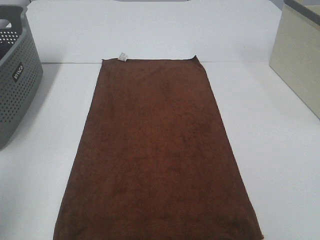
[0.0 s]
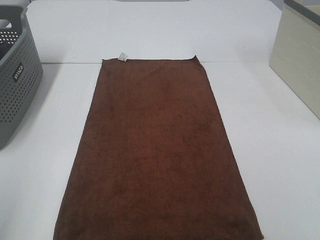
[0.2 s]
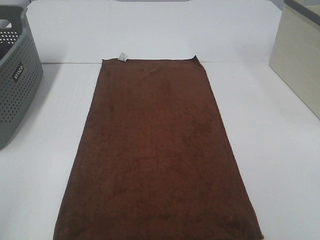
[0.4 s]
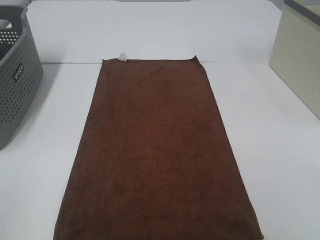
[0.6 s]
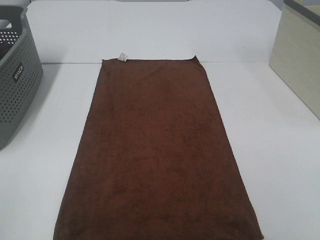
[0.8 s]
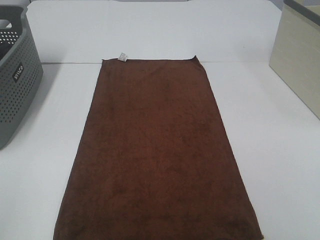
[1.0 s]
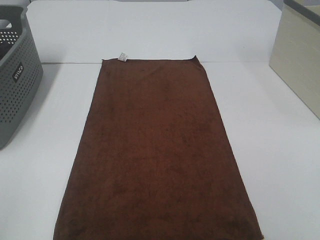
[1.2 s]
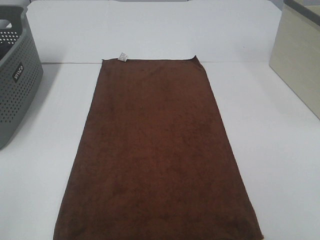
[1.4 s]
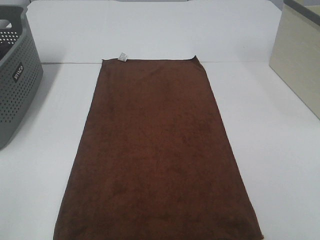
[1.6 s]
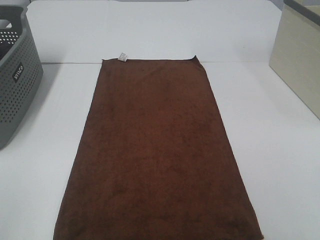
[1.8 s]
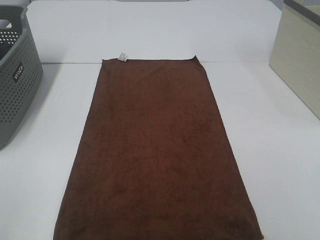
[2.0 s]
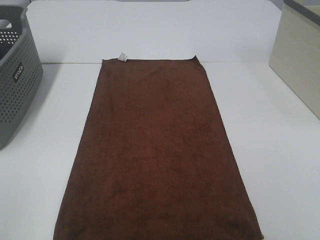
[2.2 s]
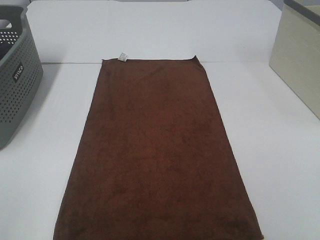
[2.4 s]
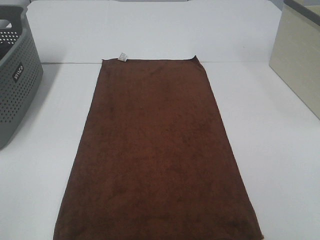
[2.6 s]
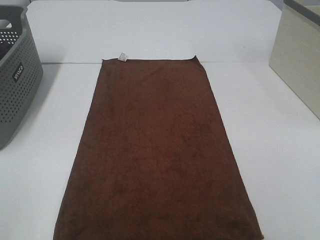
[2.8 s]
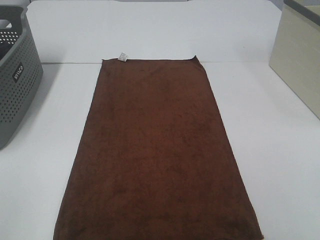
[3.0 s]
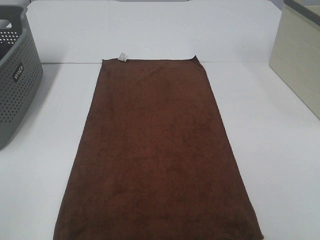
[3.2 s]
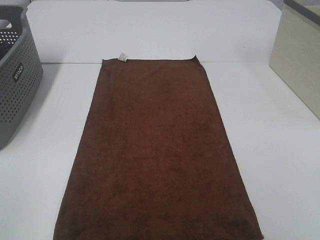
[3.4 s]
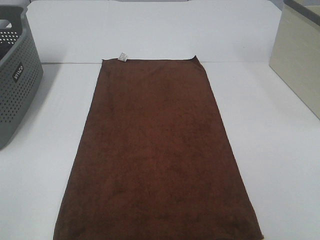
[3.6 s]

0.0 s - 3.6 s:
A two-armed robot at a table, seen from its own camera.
Task of the whole recording: Remove the towel and place it.
0.0 s - 1.8 s: The left gripper shifts some 10 cm backward.
1.8 s - 3.6 s: Both grippers stay put.

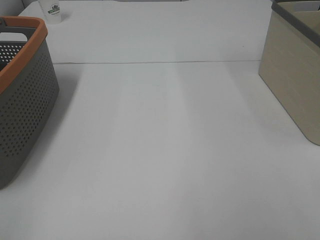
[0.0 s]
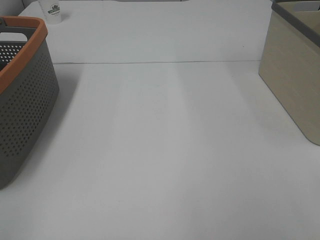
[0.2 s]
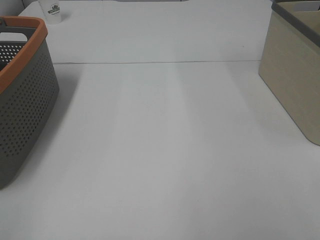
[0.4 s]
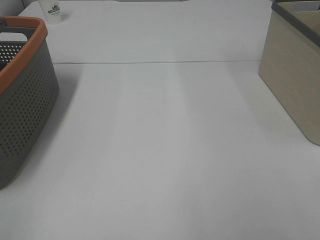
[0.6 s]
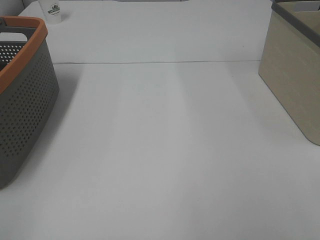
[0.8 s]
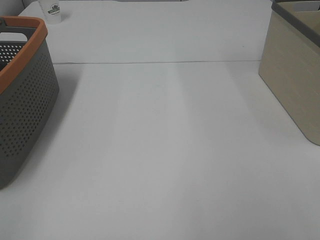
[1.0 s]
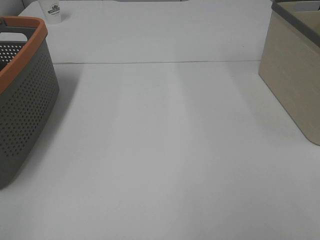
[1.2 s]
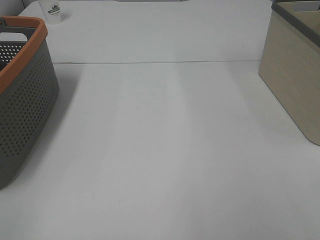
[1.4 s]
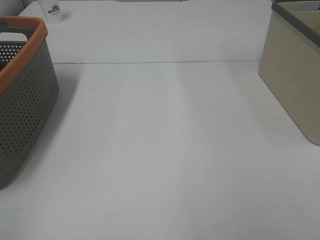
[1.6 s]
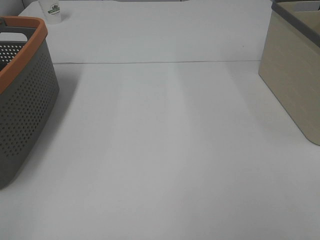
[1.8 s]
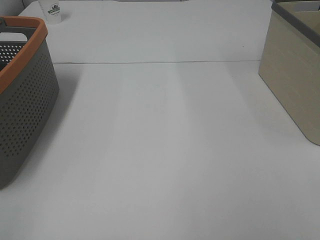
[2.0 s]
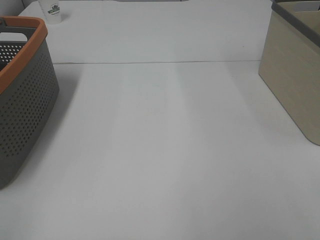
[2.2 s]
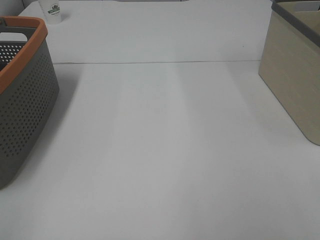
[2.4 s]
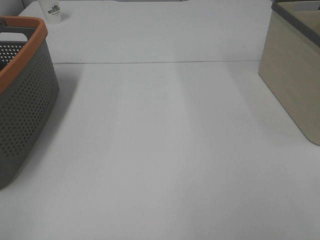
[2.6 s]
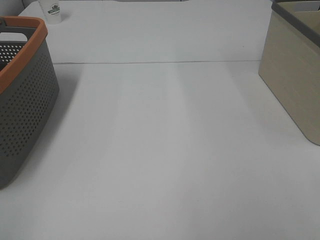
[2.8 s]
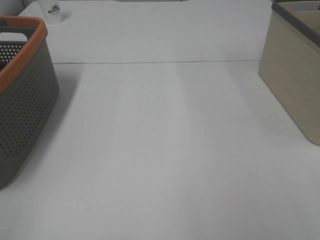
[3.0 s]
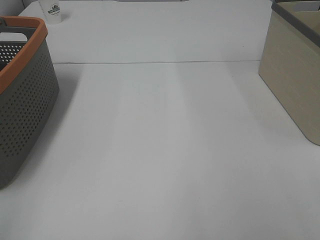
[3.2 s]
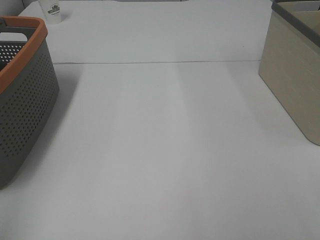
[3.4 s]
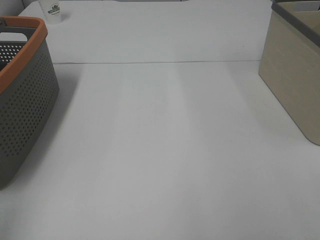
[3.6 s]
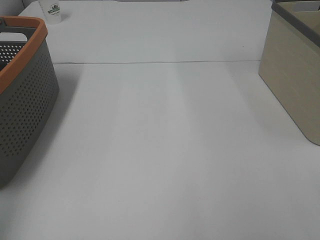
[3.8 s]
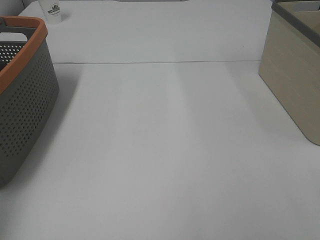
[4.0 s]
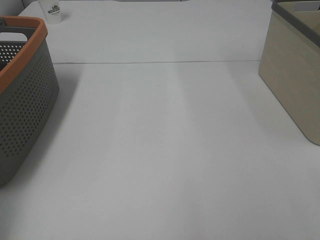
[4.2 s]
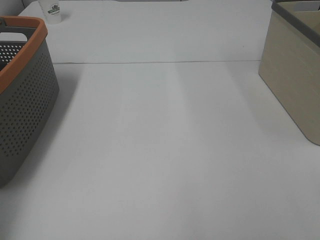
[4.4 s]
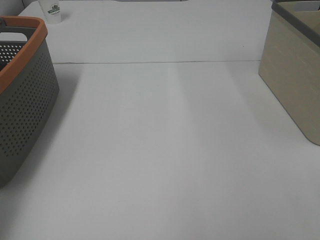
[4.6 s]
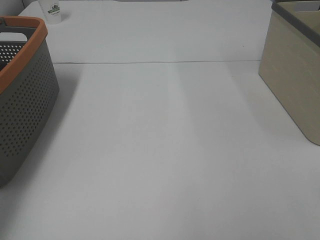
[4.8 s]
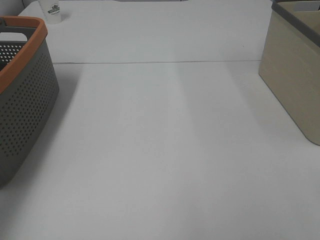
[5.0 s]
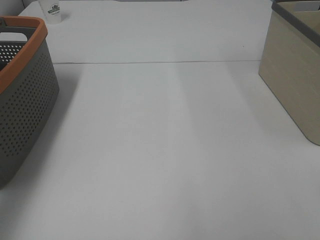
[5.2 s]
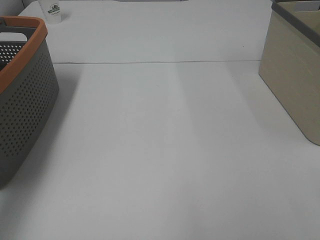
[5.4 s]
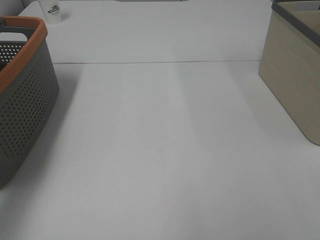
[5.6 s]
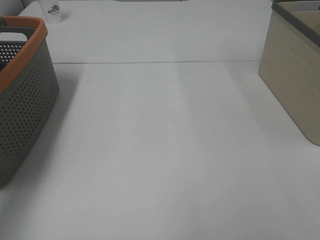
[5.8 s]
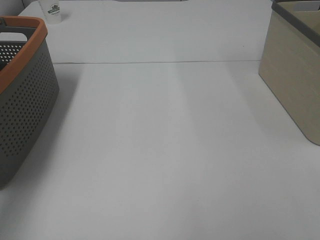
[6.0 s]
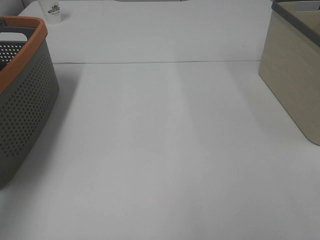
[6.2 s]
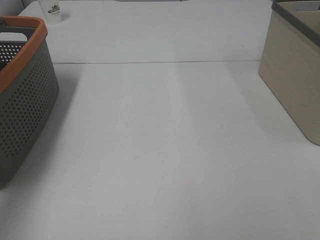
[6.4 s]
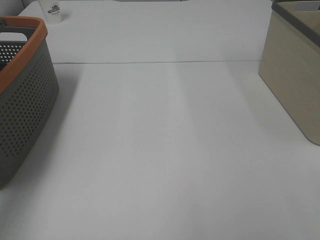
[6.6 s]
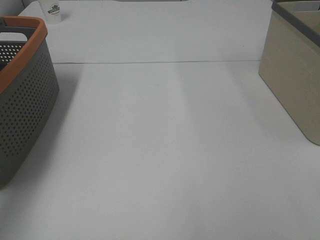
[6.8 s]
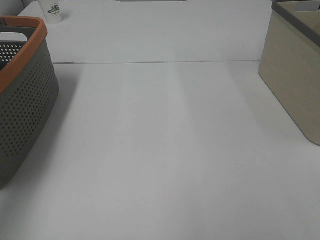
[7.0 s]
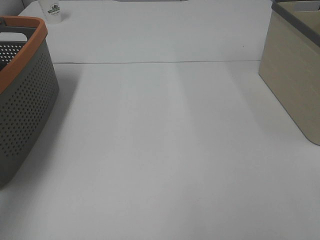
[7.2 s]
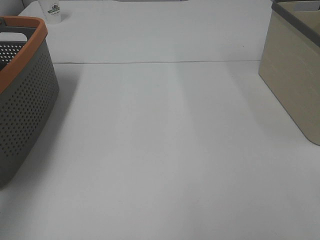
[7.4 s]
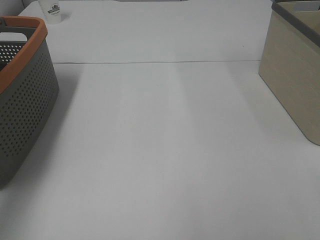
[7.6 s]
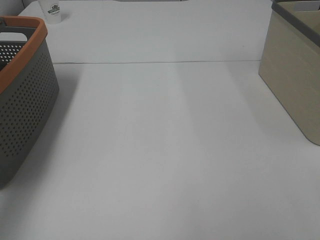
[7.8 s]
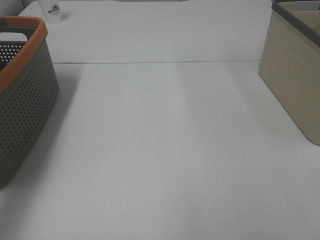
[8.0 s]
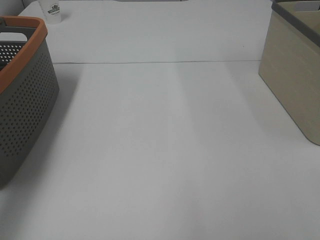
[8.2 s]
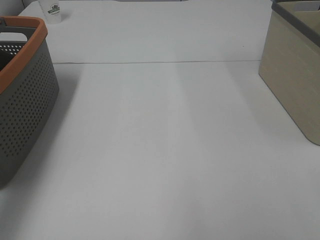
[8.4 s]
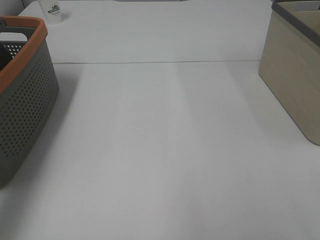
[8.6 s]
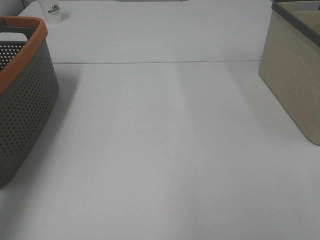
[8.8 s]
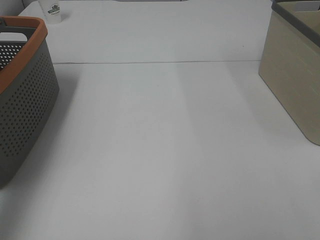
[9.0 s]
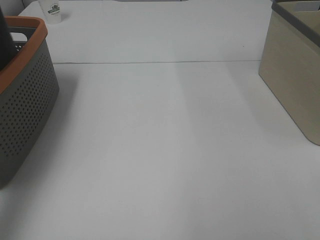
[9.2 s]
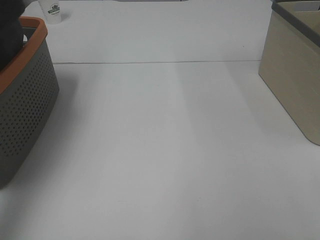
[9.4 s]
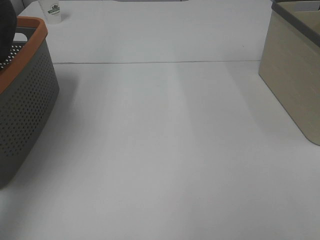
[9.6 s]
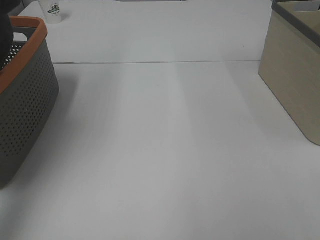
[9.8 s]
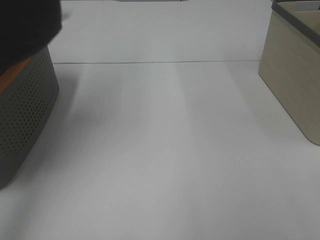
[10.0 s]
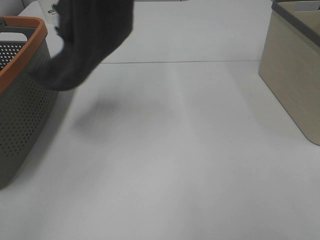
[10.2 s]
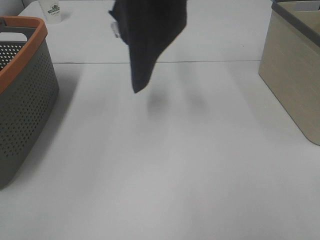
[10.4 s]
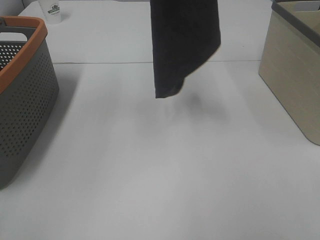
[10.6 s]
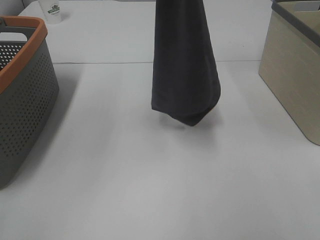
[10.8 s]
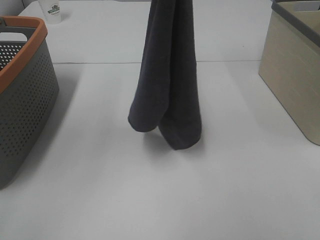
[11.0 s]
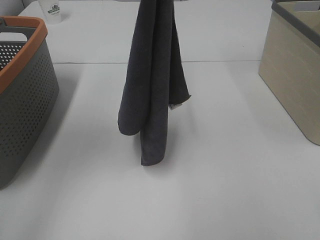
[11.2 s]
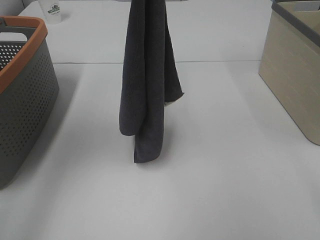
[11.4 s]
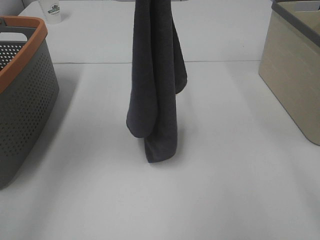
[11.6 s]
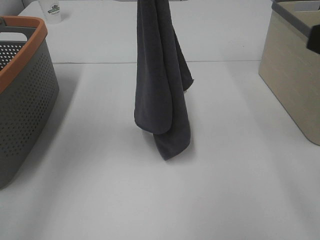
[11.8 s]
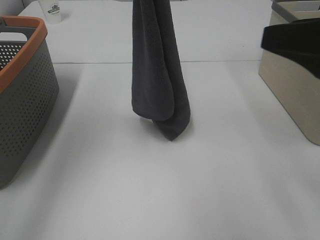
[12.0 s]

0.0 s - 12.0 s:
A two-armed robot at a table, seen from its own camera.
Task of the whole recording: Remove the towel and place it.
0.0 s - 3.0 s: The two grippers keep their place.
3.0 s - 4.4 s: The left gripper is displaced forward by approximately 25 cm.
4.4 s - 6.0 s: The left gripper heads forward and downward, covering some 15 cm.
9.0 s - 10.4 s: The left gripper is displaced to the right by roughly 20 cm.
10.4 s - 12.0 s: The left gripper moves downward, about 5 cm, while the right gripper moves forward, about 15 cm.

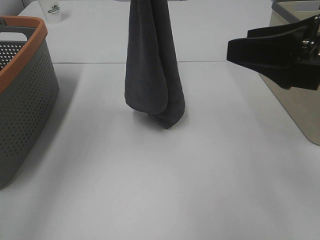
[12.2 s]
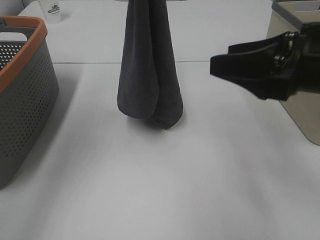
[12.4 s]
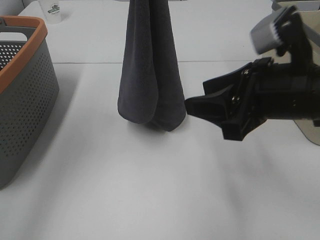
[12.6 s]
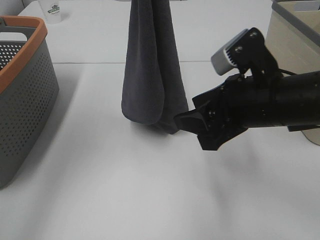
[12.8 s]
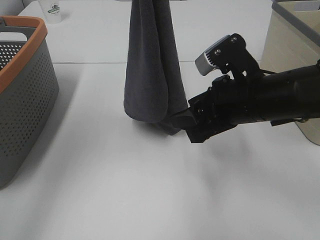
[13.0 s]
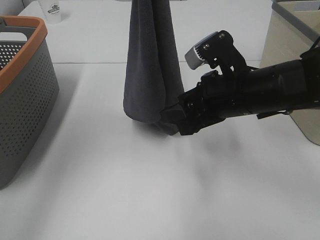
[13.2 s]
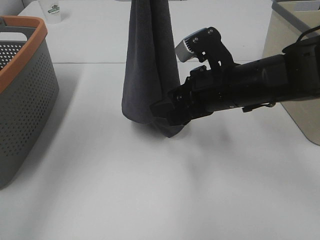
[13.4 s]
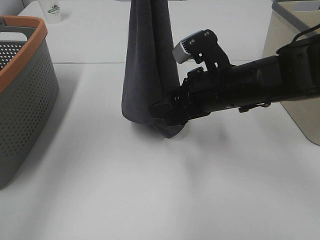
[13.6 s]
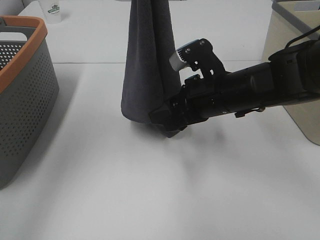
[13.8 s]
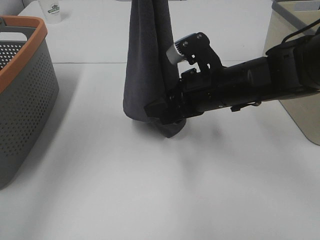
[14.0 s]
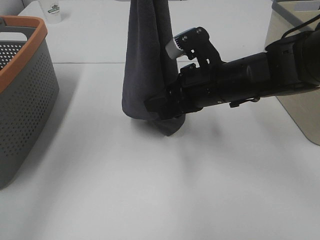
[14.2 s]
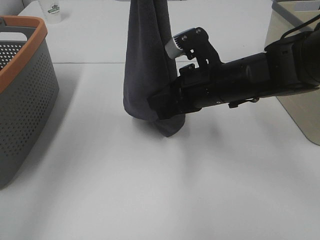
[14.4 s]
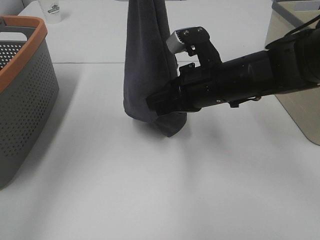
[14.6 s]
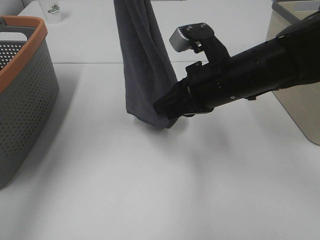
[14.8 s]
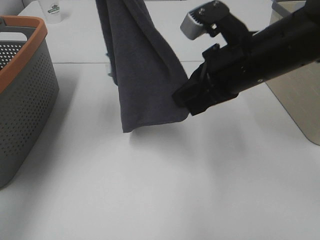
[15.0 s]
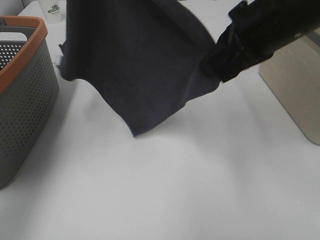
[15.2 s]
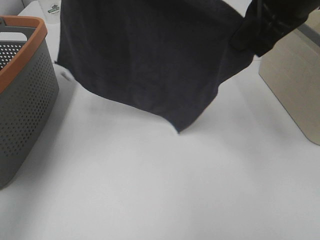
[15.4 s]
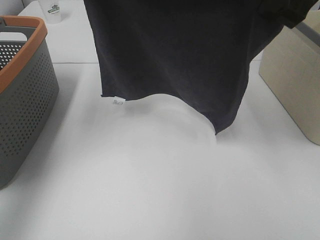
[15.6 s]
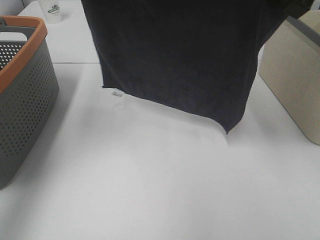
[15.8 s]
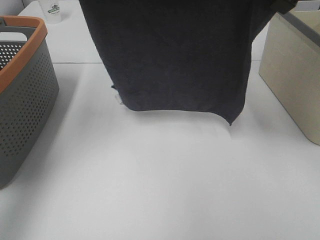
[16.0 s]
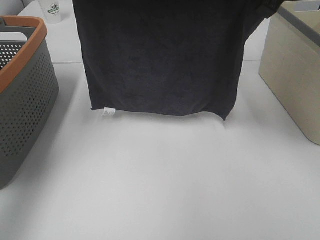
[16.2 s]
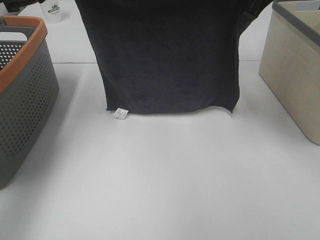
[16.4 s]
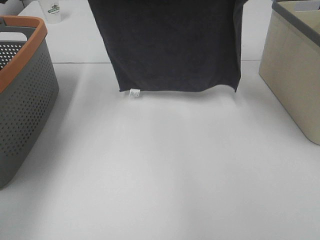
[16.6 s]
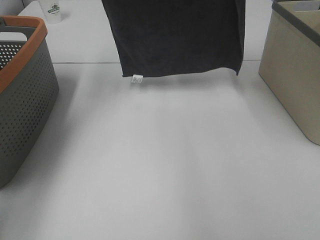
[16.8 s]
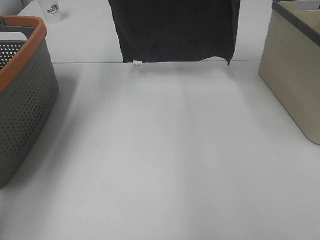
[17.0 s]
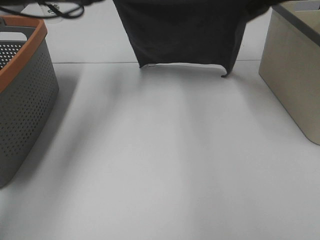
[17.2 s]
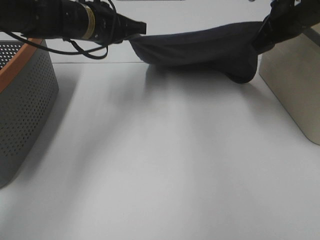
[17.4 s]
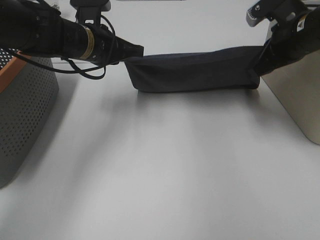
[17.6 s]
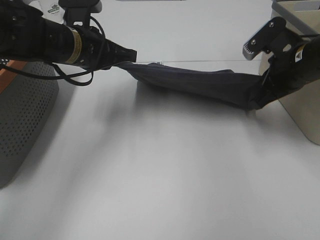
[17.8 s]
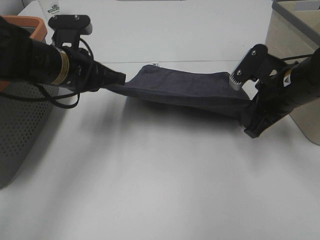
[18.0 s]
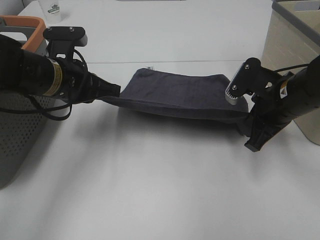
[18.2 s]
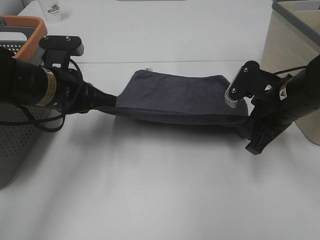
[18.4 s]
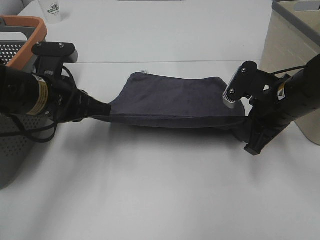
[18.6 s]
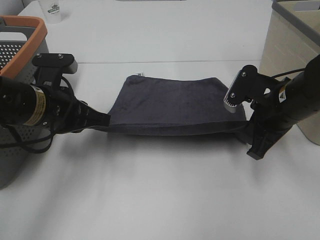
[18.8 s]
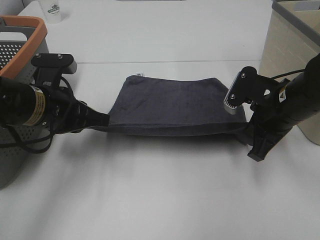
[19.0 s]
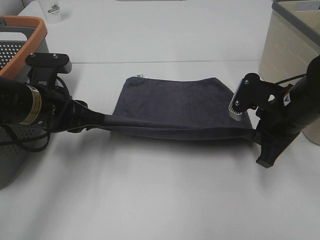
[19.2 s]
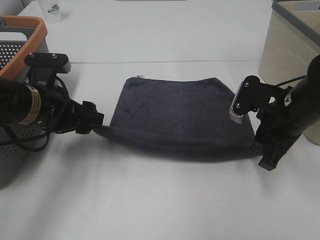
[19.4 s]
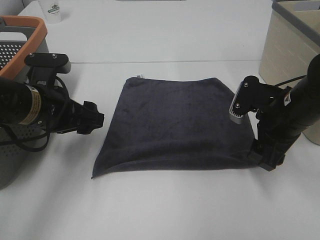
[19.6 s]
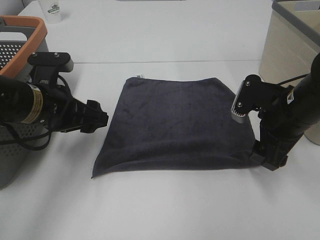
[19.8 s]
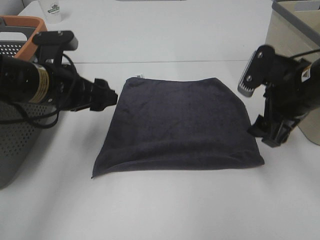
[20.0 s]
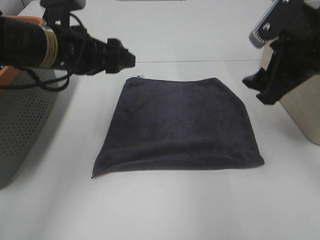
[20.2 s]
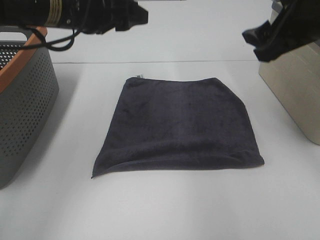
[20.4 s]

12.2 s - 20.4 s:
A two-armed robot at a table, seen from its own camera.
Task of the whole recording: Remove the towel and place it.
Step, 13.8 s - 15.6 s: Left hand: spread the grey towel flat on the table.
Step, 13.8 s - 15.6 s: Right hand: spread the grey towel flat on the table.
12.2 s - 13.8 s: The right gripper travels downward, to the left and forward by about 20 cm.
13.8 s - 15.4 s: The right gripper goes some 20 cm upward, and closes up. Meanwhile the left gripper shifts some 5 cm to the left.
15.4 s - 17.2 s: The left gripper travels downward, forward and to the right by some 15 cm. The right gripper shifts roughly 15 cm forward and to the right.
17.2 s - 18.8 s: The right gripper goes some 20 cm downward and backward; the left gripper travels backward and downward by roughly 20 cm.
18.8 s - 20.4 s: The left gripper heads upward and forward, covering approximately 15 cm, and opens its fingers. The right gripper goes roughly 15 cm upward, and opens its fingers.
